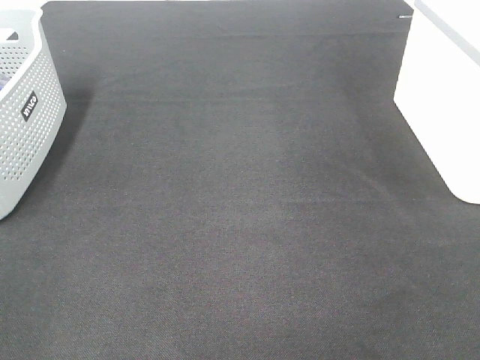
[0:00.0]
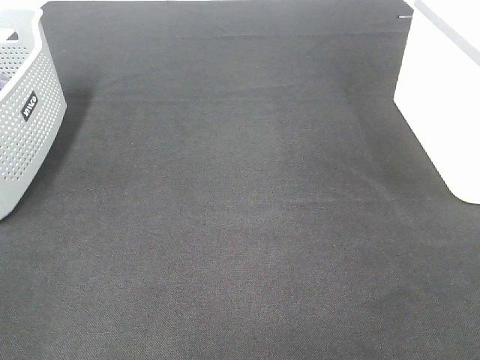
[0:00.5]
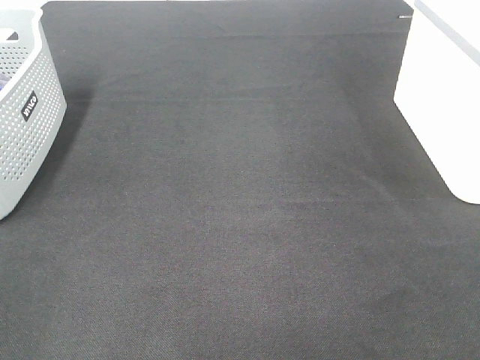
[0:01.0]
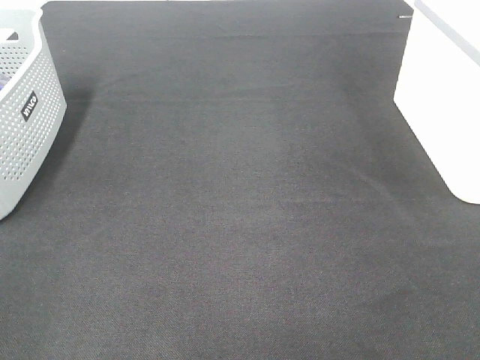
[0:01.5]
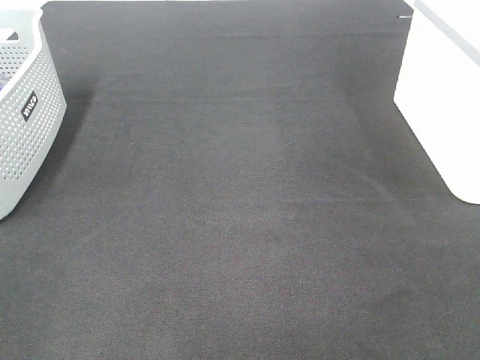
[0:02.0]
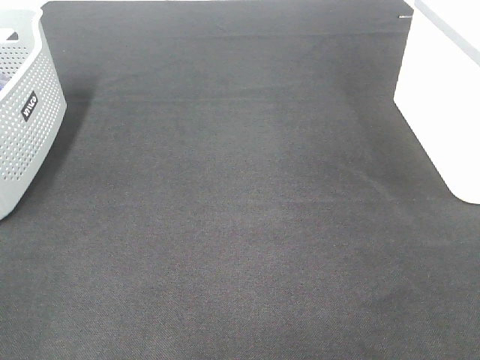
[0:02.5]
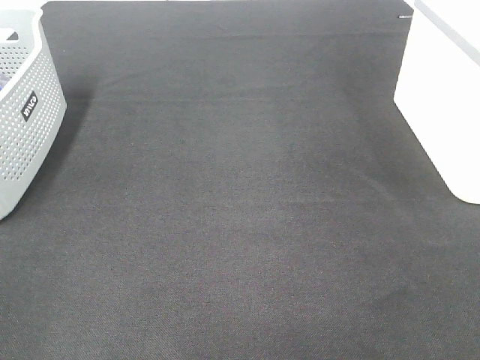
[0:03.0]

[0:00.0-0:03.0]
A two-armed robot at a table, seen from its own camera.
0:01.5 to 0:03.0: The two grippers keep their place.

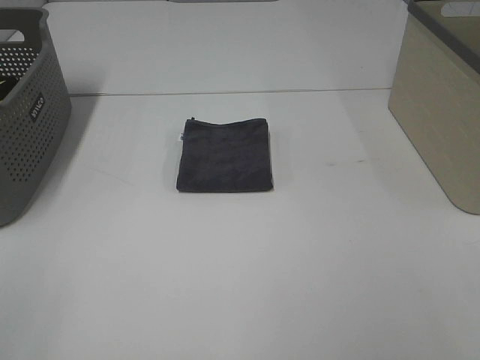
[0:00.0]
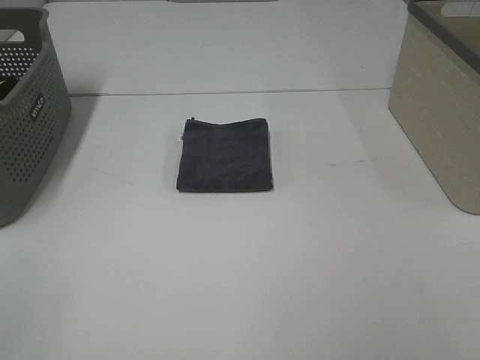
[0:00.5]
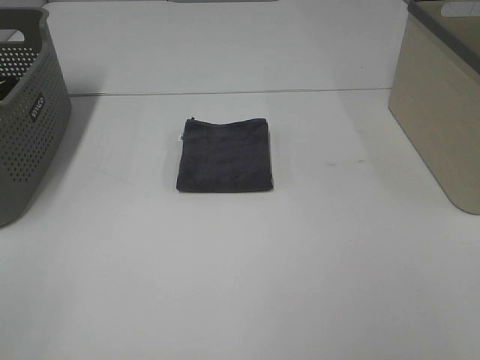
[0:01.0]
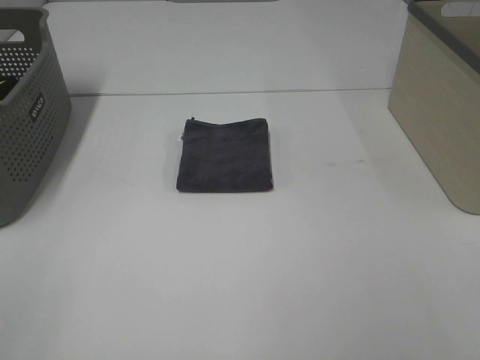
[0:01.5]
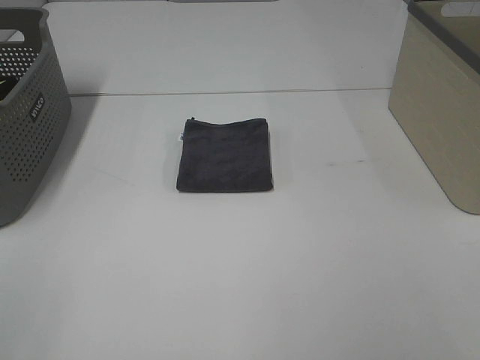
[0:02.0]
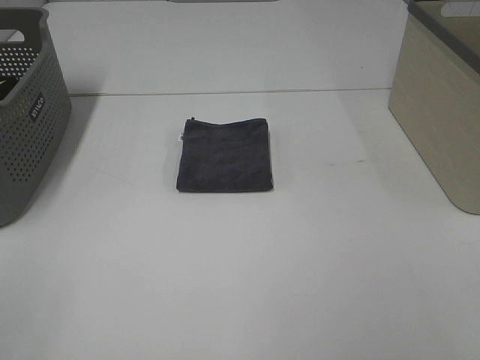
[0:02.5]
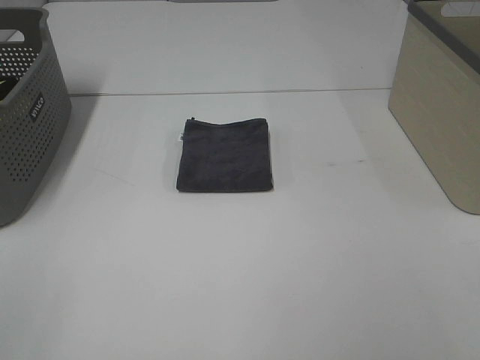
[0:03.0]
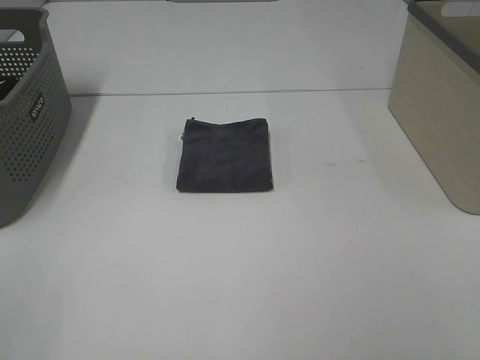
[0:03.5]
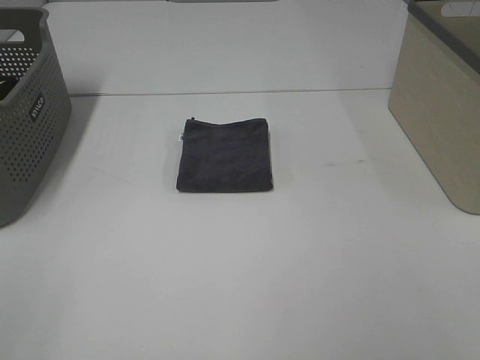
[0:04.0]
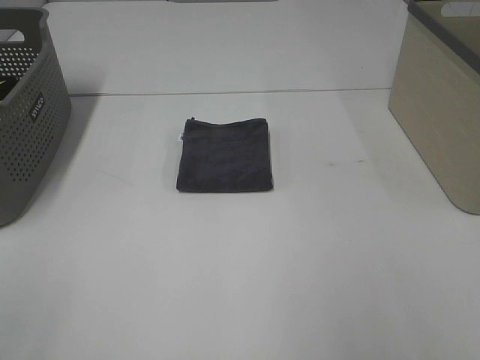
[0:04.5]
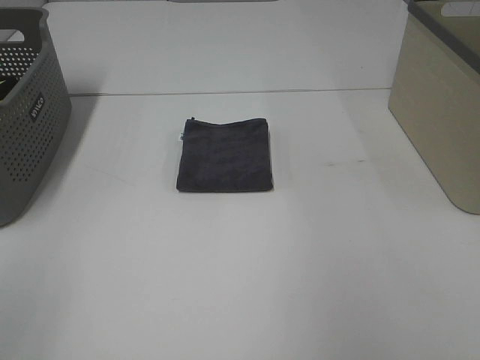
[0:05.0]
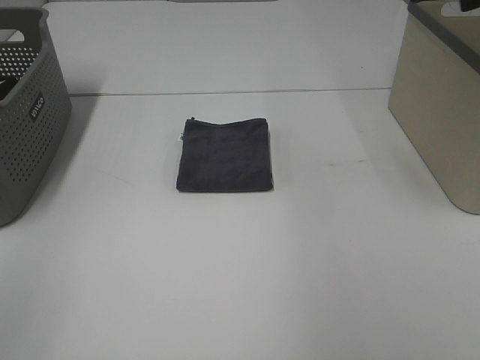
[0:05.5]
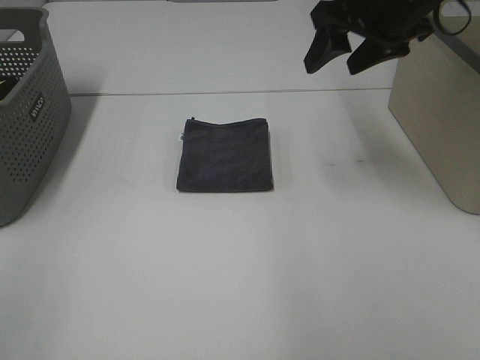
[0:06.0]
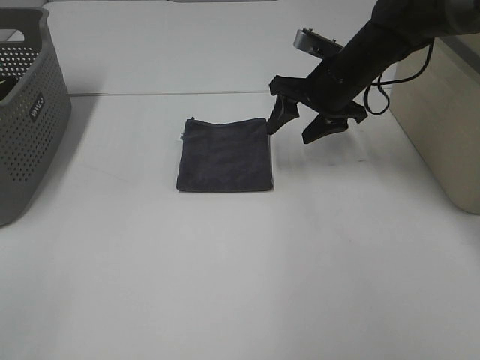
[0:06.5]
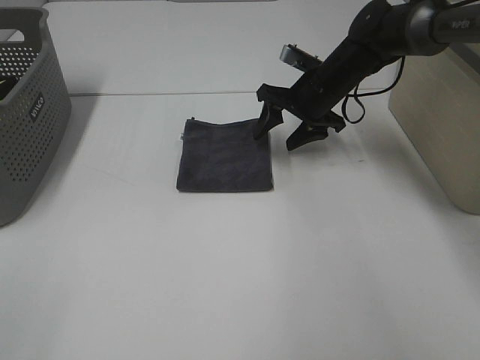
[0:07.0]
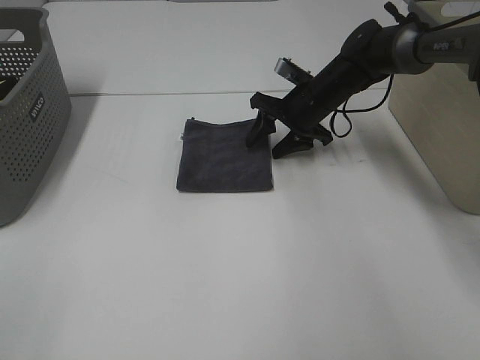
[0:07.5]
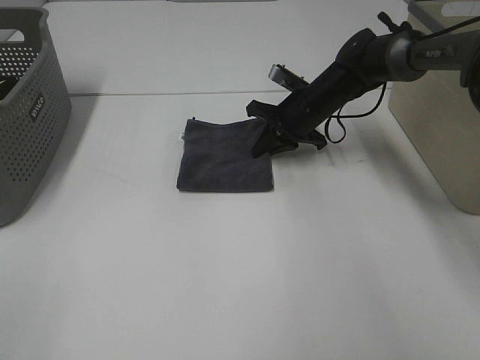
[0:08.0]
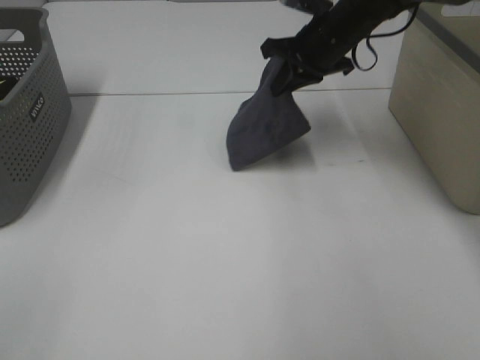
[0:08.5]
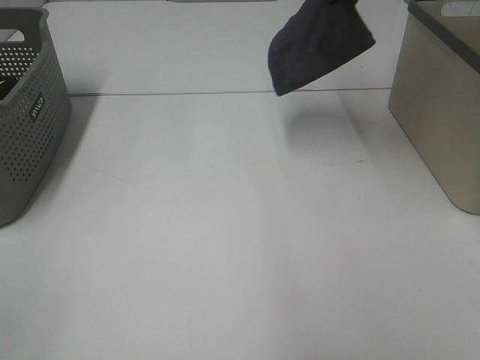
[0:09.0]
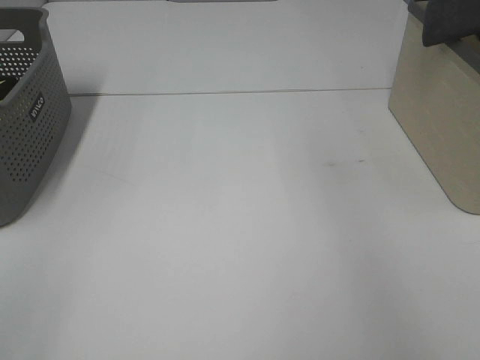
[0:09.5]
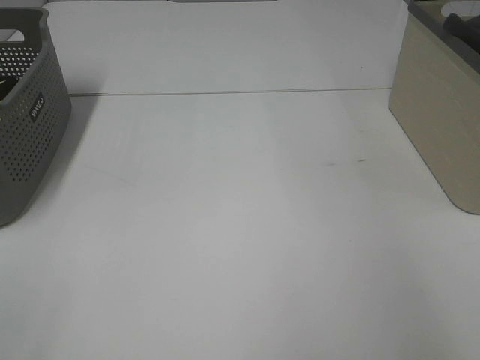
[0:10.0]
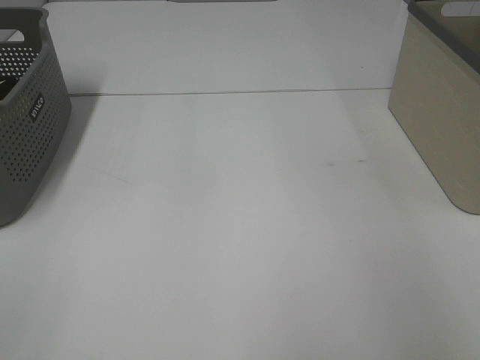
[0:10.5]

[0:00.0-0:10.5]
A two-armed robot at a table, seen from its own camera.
Step, 0:00.0 to 0:07.5: Right hand: grab the folded grey towel.
0:00.0 to 0:04.0: Both grippers stay about where they are.
0:04.0 to 0:06.5: The right gripper heads forward, covering some 40 cm.
0:06.5 to 0:08.5: The right gripper shifts by approximately 5 cm, and closes its fingers.
0:08.5 to 0:10.5: The right gripper is displaced to the right by some 30 cm, and opens up.

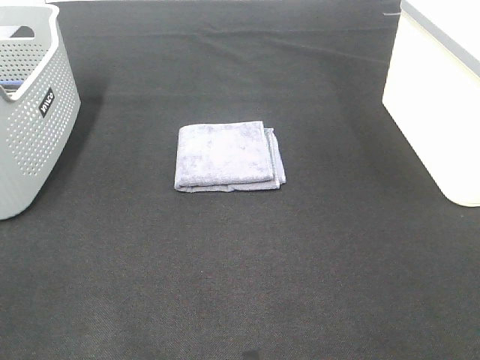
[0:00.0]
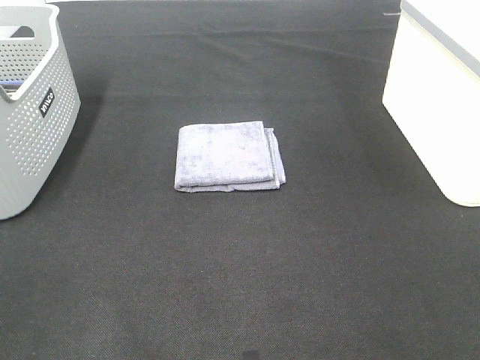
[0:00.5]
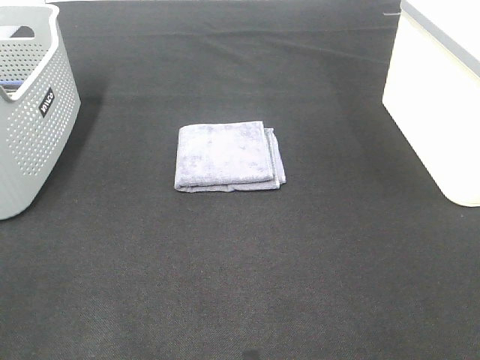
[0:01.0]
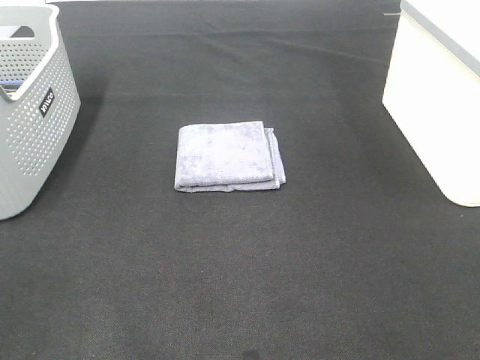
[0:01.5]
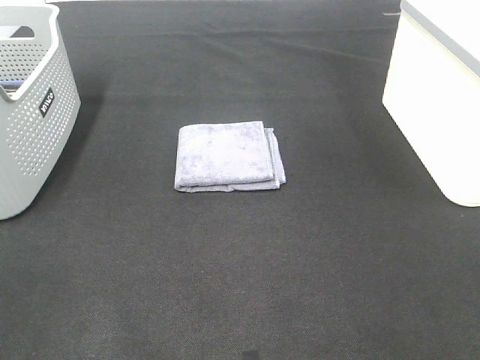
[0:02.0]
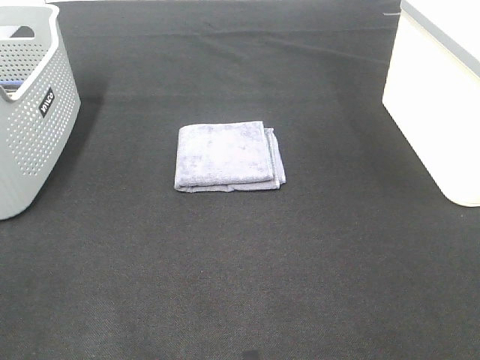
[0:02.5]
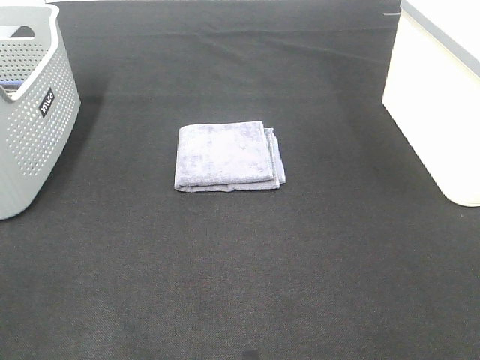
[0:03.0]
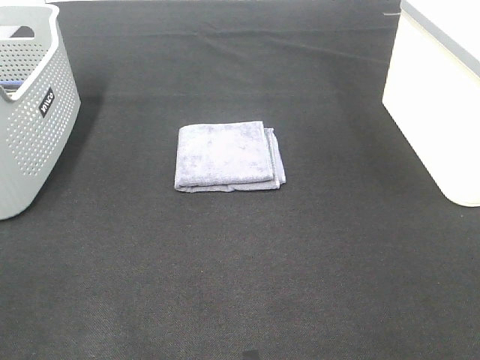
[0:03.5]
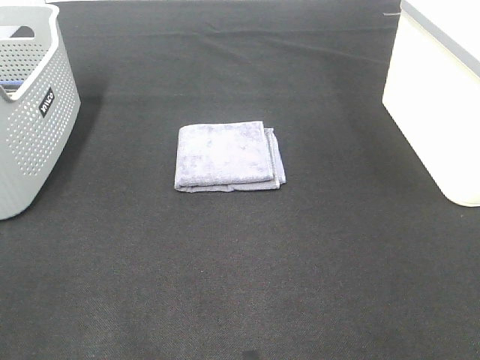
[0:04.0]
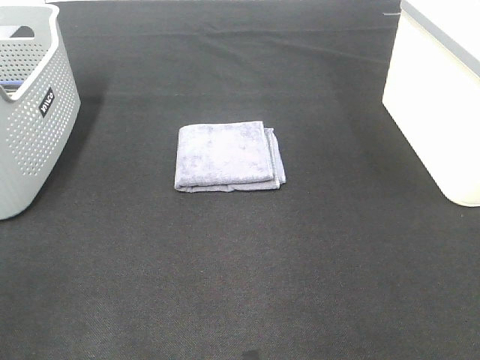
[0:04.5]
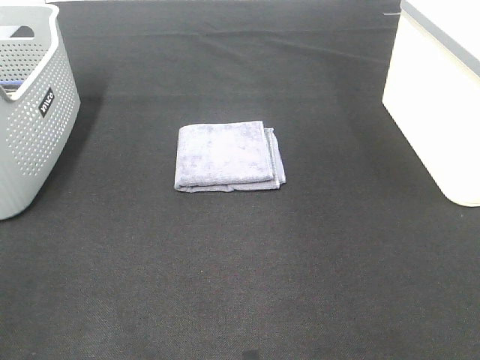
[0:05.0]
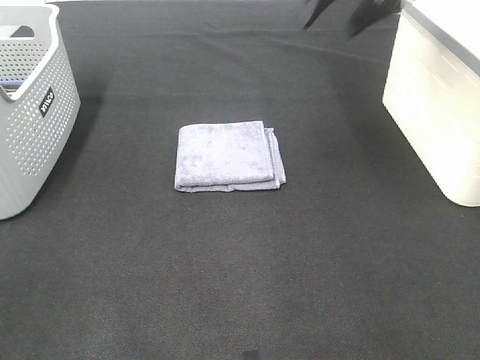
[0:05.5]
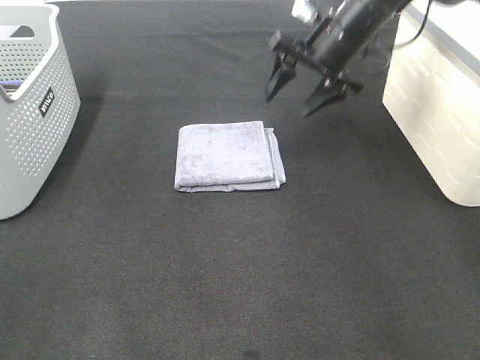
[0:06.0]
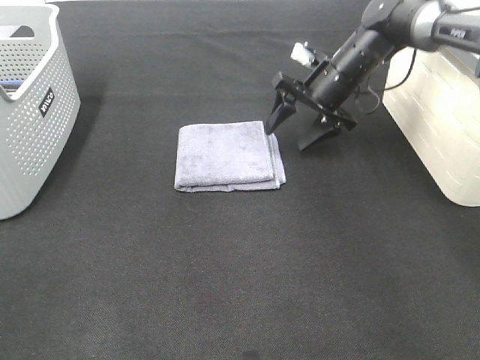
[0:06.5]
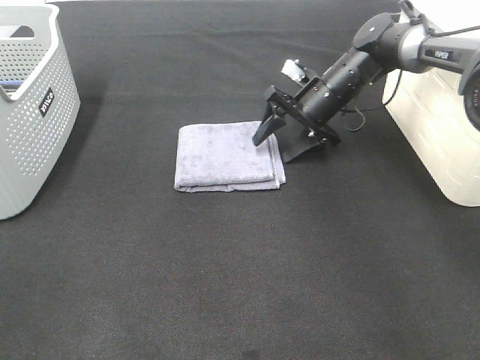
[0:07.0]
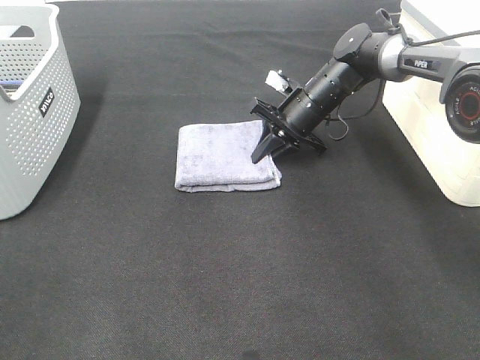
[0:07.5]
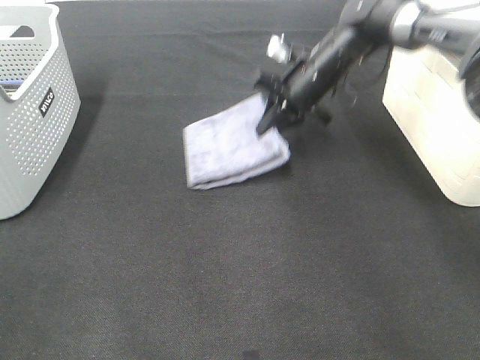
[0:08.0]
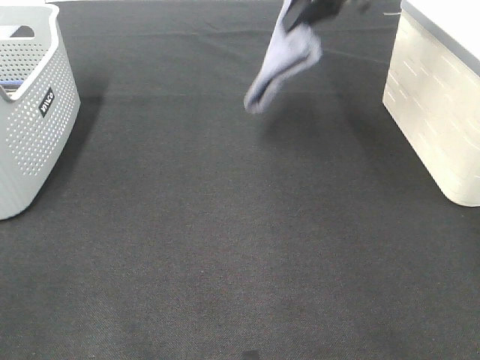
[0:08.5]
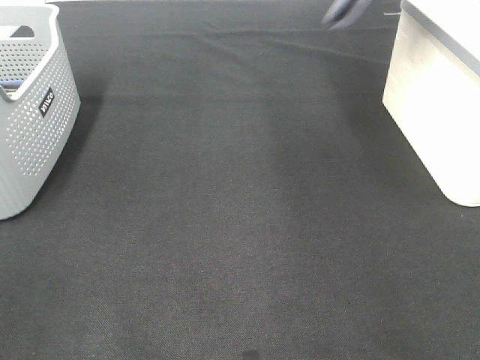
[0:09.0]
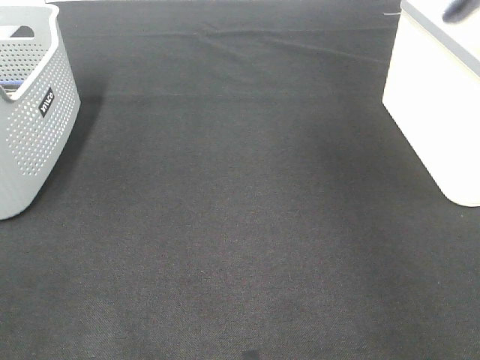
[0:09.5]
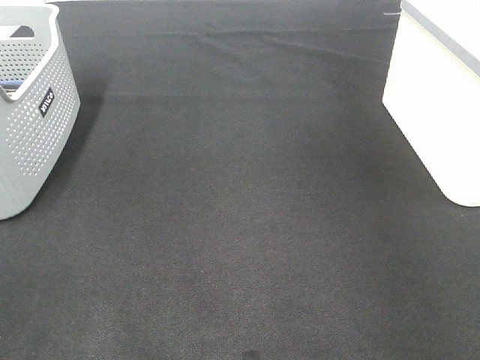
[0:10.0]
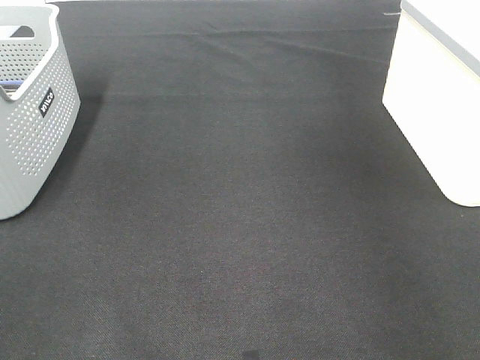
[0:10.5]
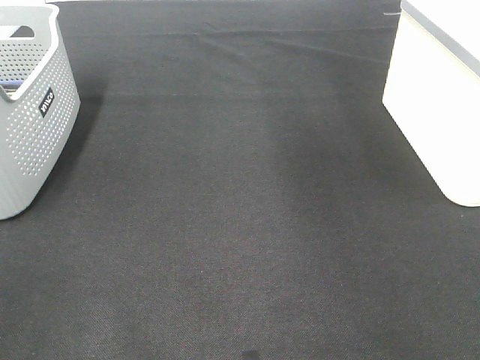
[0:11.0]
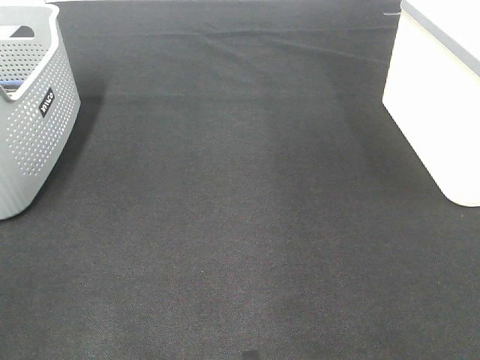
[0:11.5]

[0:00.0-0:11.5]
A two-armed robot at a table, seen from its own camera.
Step, 0:00.0 to 0:07.5: Right hand: grab the folded grey towel.
Step, 0:08.0 to 0:10.0: Right hand: place the grey towel in right basket.
0:00.0 to 0:02.0: Both grippers stay about where they are.
0:04.0 to 0:06.0: The right gripper is displaced forward by roughly 40 cm.
0:06.0 to 0:07.5: The right gripper moves downward, about 10 cm, and closes.
0:07.5 to 0:09.5: The right gripper moves upward and to the right, about 40 cm.

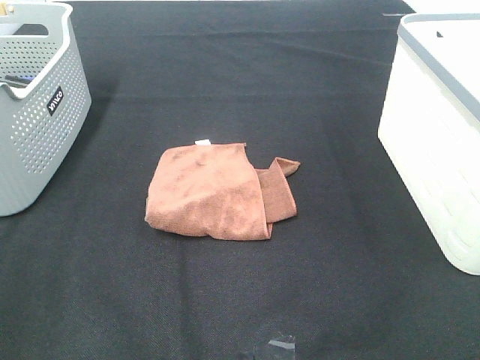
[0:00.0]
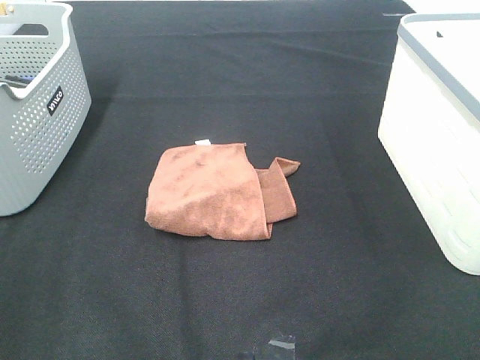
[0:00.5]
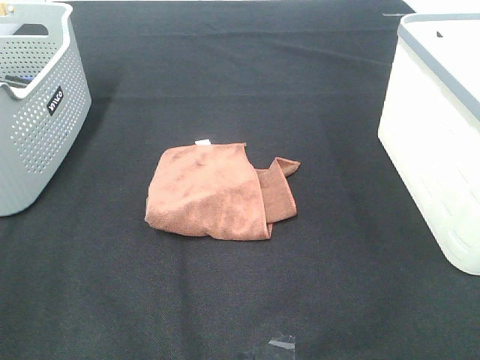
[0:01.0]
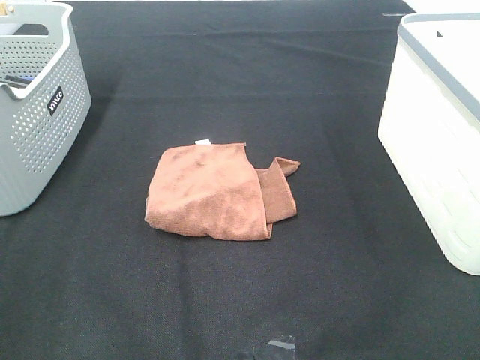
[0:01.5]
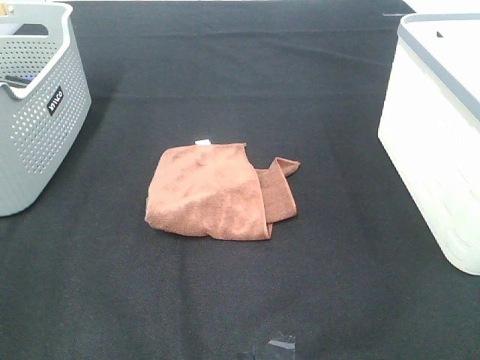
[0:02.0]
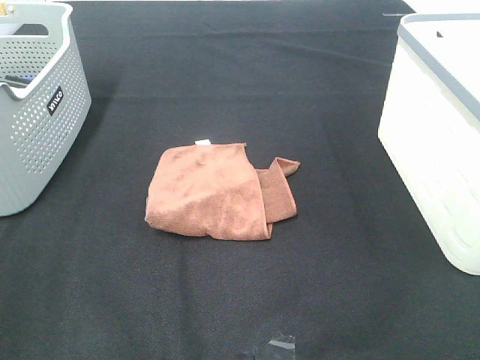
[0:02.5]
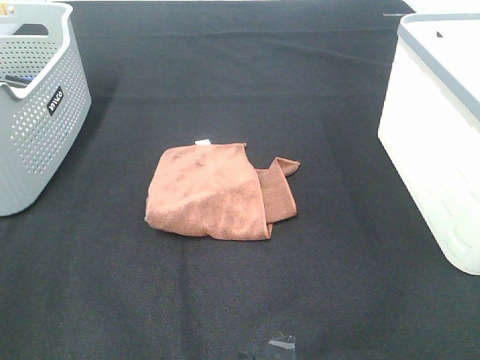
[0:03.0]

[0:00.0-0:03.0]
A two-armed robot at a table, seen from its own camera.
0:00.0 to 0:03.0: Both grippers stay put.
